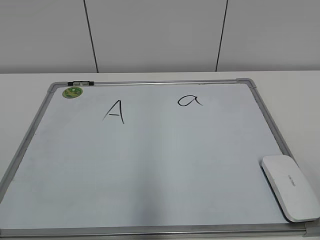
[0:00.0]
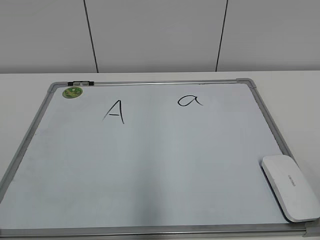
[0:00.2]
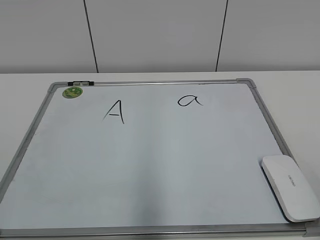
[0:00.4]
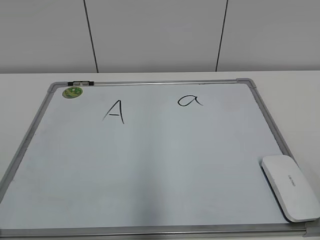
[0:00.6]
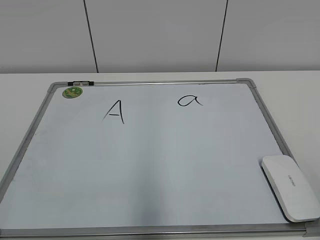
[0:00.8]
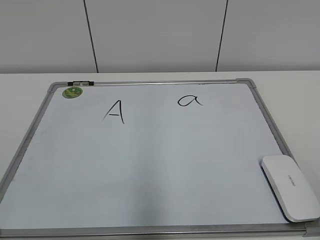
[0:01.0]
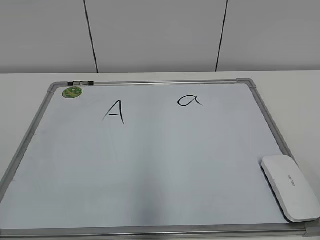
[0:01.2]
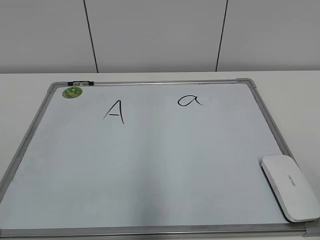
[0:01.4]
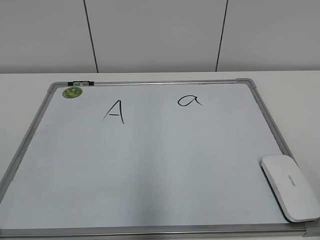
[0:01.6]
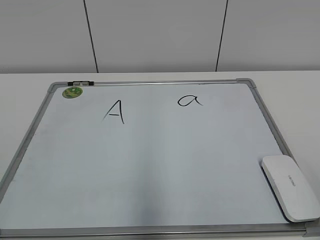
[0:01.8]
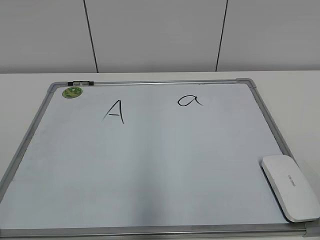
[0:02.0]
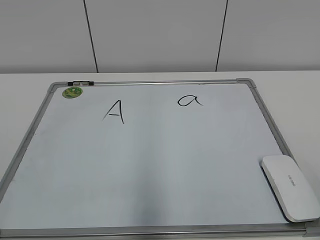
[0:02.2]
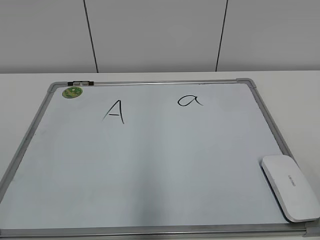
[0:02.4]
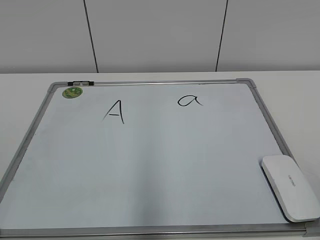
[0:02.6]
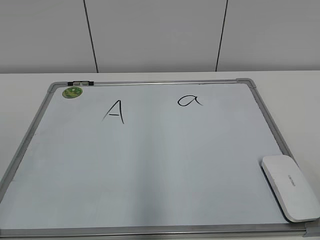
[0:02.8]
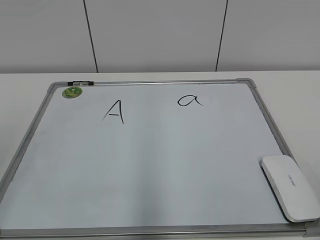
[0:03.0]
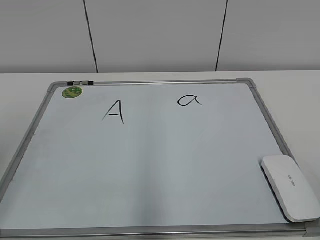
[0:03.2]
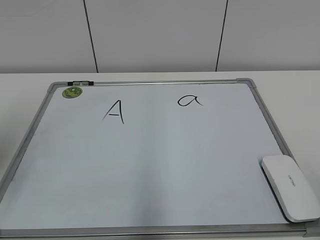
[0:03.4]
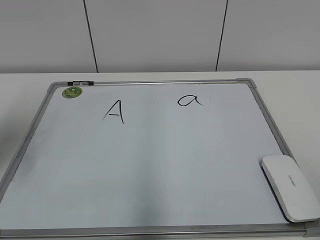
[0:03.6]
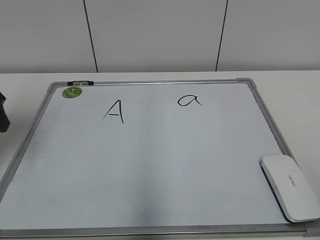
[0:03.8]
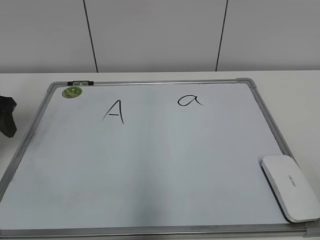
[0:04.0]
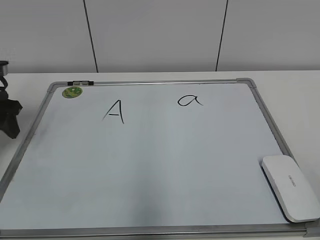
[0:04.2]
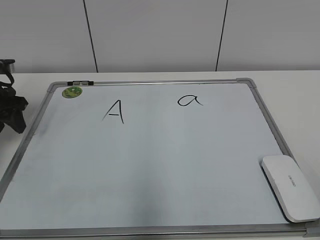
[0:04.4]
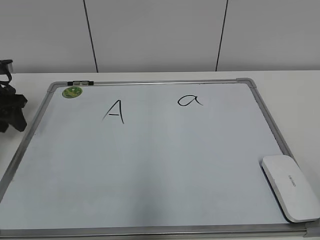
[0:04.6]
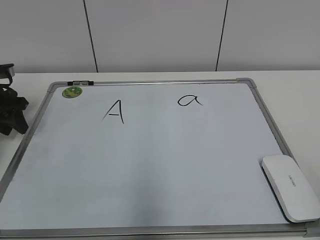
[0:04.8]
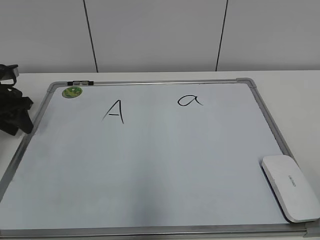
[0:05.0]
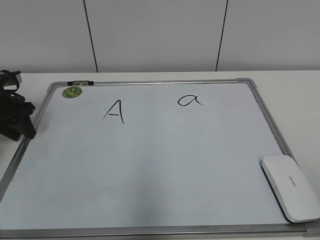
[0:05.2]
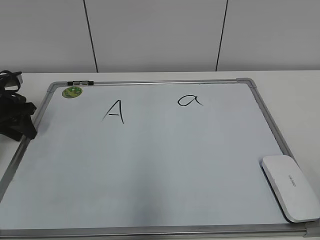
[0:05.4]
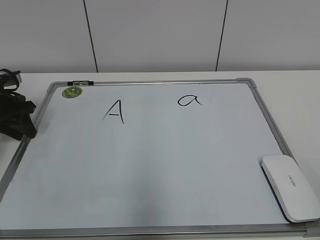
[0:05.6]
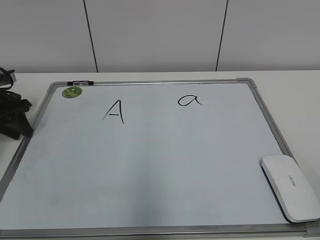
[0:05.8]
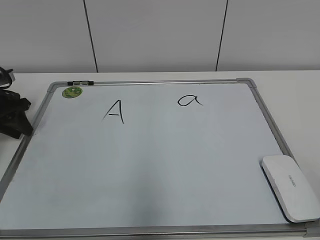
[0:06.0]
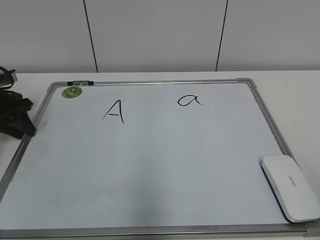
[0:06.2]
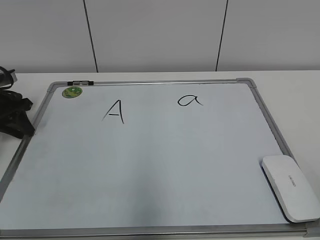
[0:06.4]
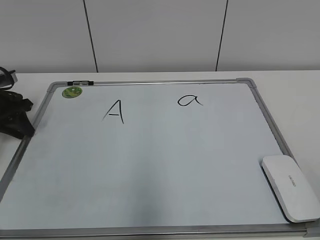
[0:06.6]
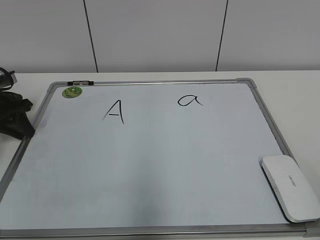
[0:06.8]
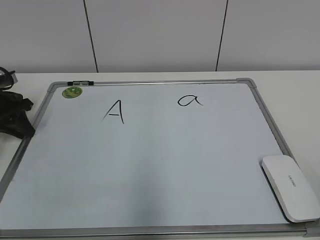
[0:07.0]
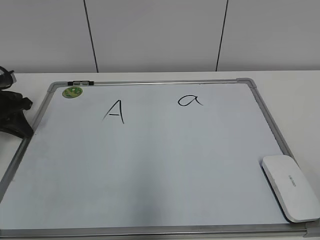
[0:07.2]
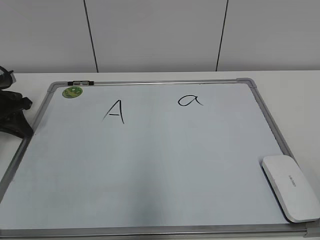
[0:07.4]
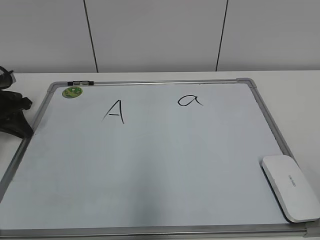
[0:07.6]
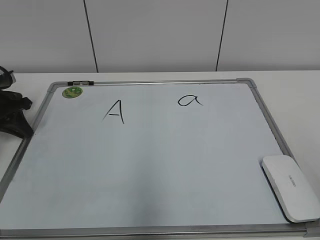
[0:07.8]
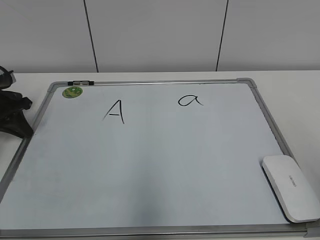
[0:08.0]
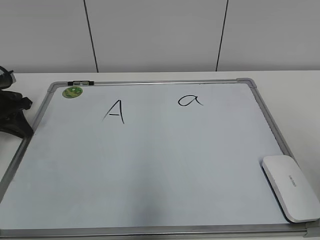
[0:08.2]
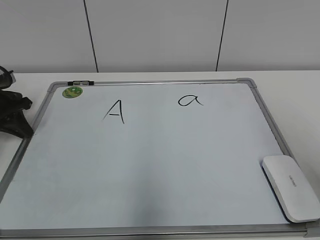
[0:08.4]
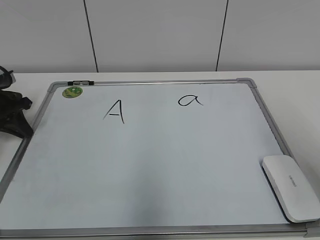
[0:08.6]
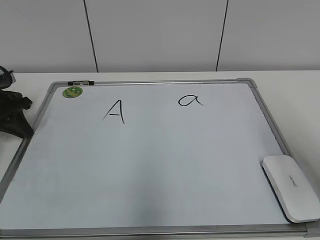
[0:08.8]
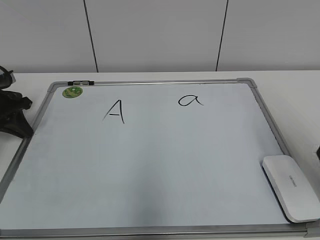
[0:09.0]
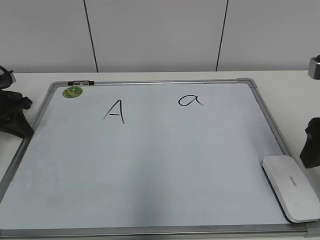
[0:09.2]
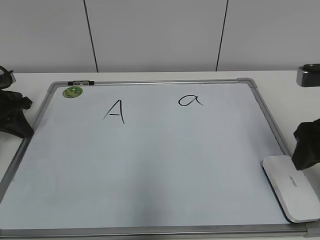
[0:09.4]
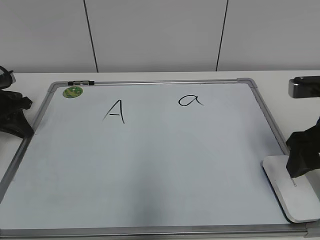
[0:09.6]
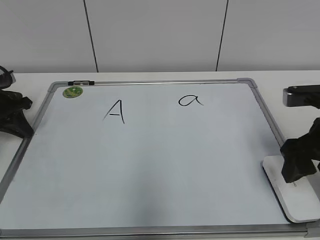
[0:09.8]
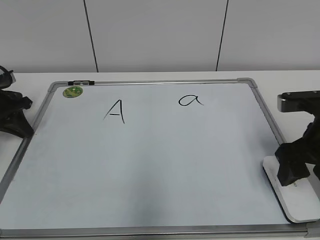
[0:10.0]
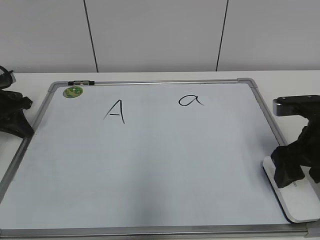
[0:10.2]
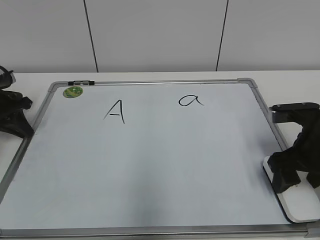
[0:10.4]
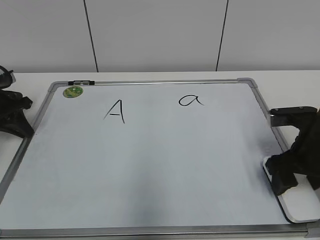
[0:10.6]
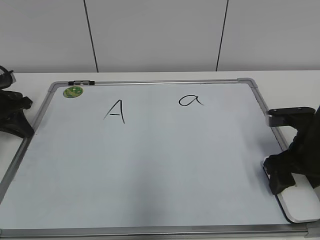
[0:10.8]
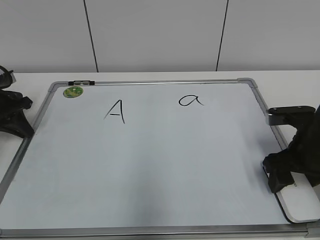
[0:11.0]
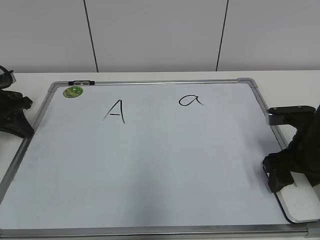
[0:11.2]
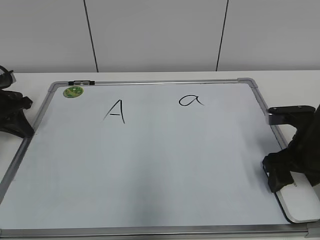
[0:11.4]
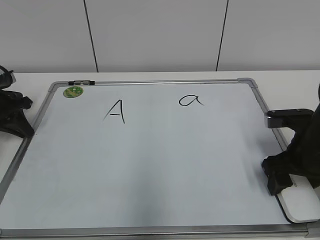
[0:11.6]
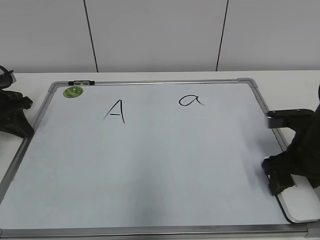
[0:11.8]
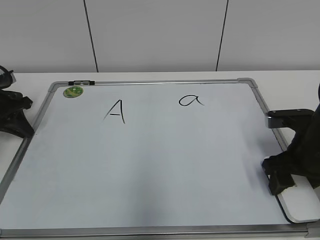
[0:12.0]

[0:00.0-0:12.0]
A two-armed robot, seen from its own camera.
Task of the whole recording: pick up the eraser on the blackboard and erase the letter "a".
Step, 0:00.0 to 0:07.4: Hold the drawing board steady with your left hand.
Step, 0:07.8 to 0:11.0: Grab the eraser with your right hand.
0:03.0 to 0:04.4: The left gripper travels forward and downward by about 30 cm.
0:04.4 to 0:06.0: The left gripper shifts by some 5 cm.
0:07.6 to 0:09.0: The right gripper goes roughly 20 cm forward.
0:09.0 to 0:10.4: The right gripper goes roughly 15 cm downward and forward.
0:10.4 to 0:12.0: There are only small adjustments of the grippers.

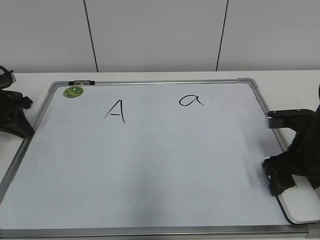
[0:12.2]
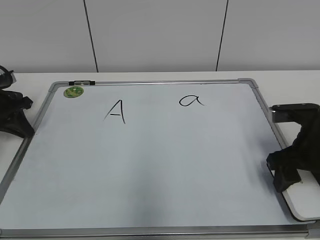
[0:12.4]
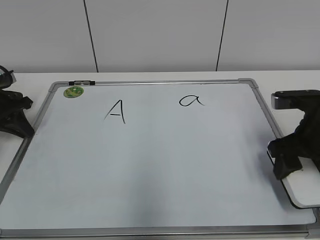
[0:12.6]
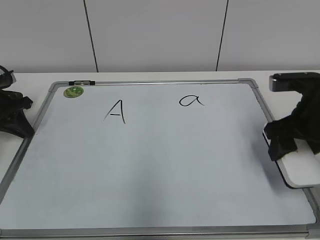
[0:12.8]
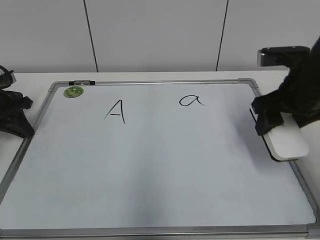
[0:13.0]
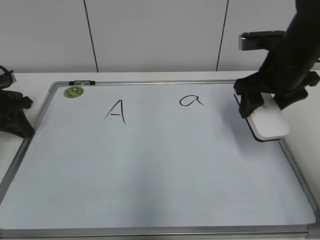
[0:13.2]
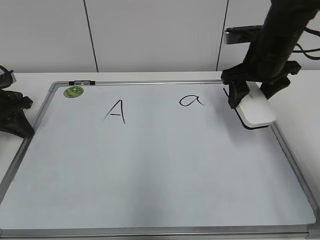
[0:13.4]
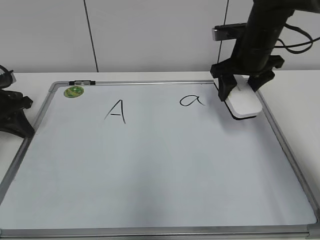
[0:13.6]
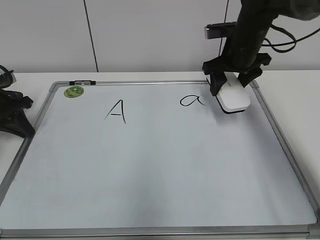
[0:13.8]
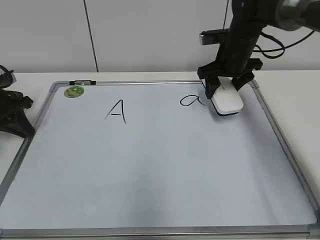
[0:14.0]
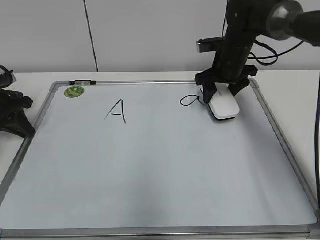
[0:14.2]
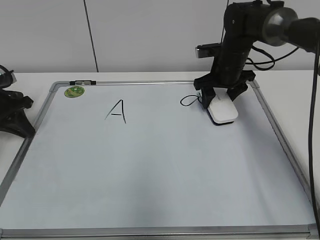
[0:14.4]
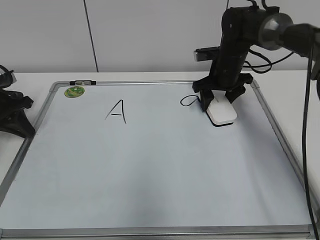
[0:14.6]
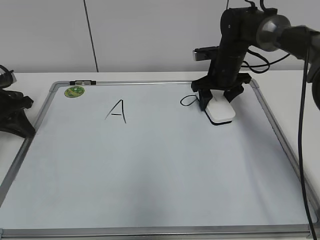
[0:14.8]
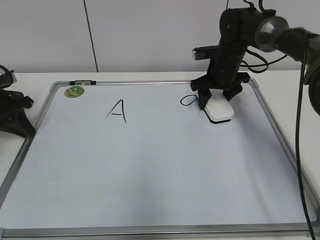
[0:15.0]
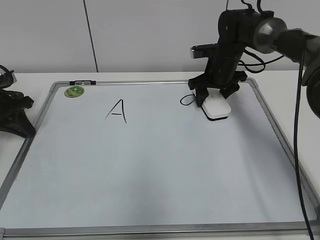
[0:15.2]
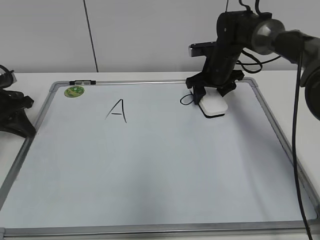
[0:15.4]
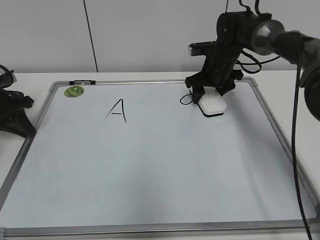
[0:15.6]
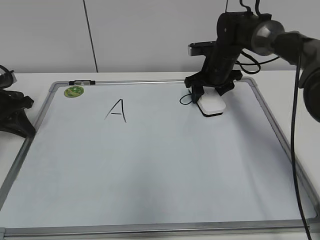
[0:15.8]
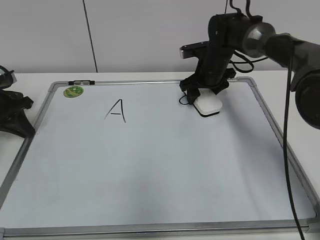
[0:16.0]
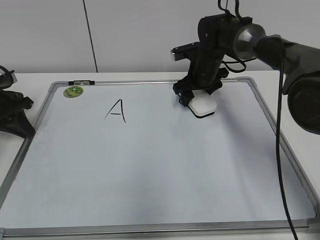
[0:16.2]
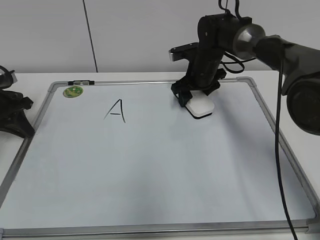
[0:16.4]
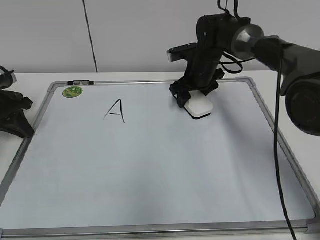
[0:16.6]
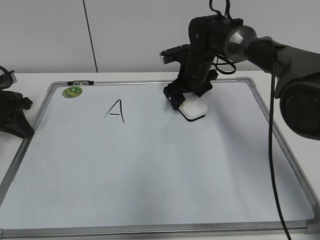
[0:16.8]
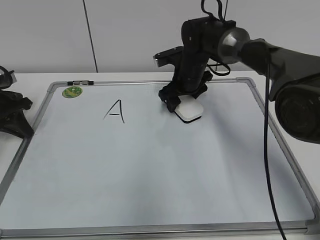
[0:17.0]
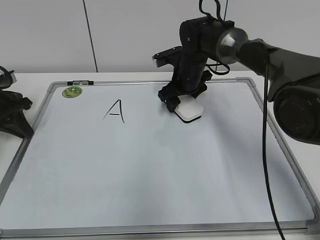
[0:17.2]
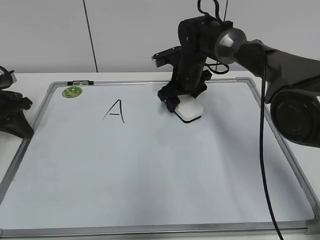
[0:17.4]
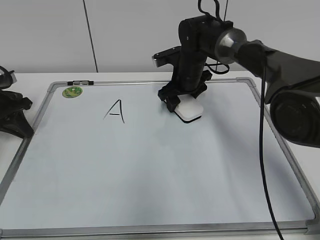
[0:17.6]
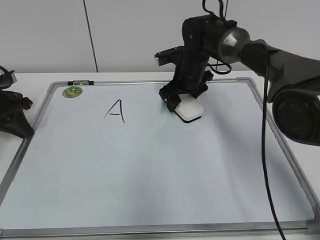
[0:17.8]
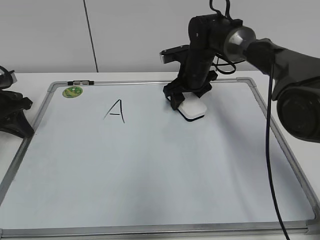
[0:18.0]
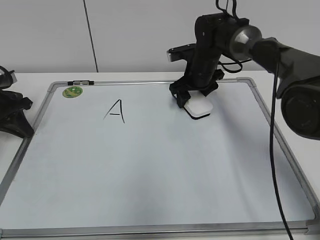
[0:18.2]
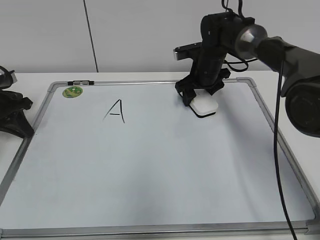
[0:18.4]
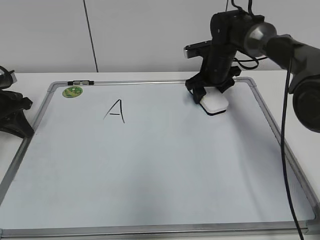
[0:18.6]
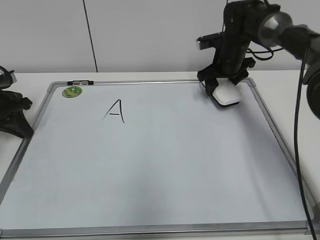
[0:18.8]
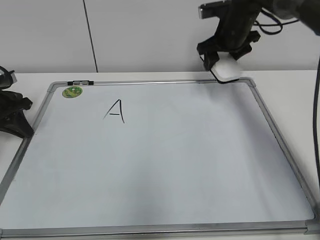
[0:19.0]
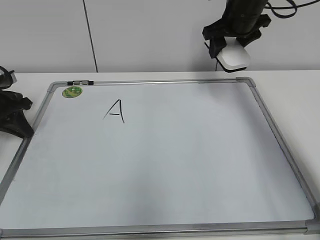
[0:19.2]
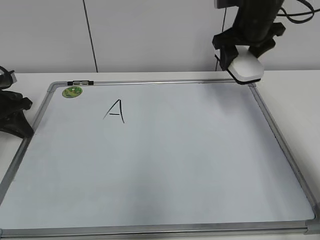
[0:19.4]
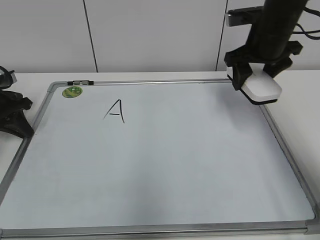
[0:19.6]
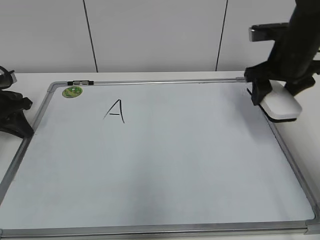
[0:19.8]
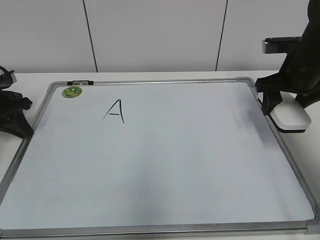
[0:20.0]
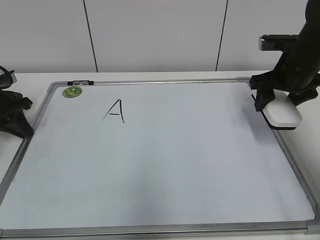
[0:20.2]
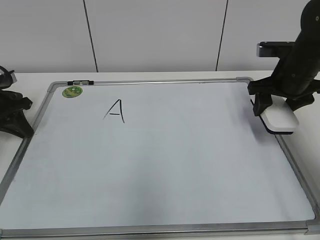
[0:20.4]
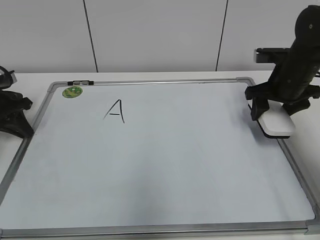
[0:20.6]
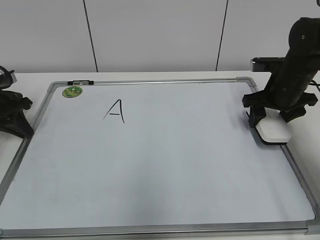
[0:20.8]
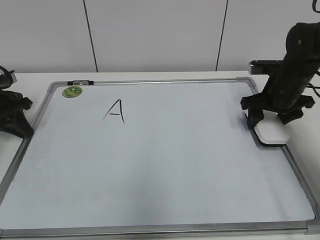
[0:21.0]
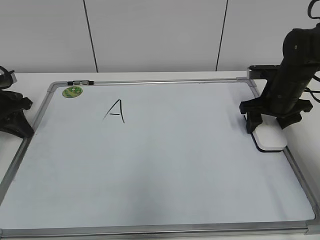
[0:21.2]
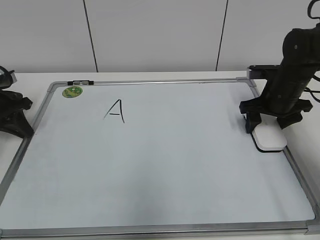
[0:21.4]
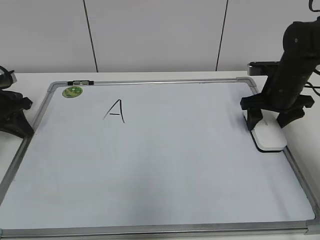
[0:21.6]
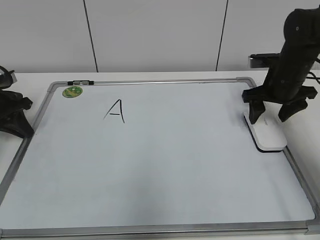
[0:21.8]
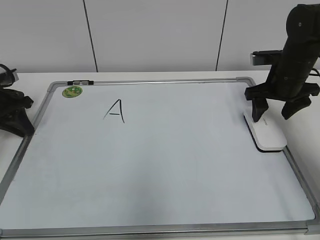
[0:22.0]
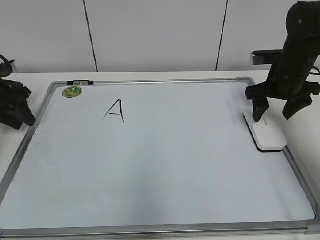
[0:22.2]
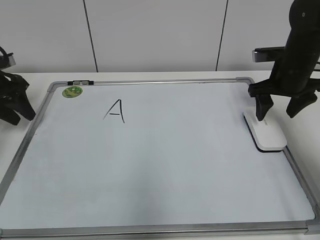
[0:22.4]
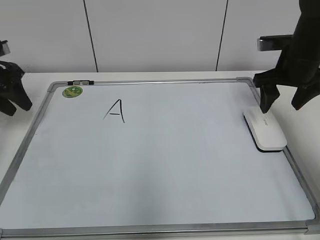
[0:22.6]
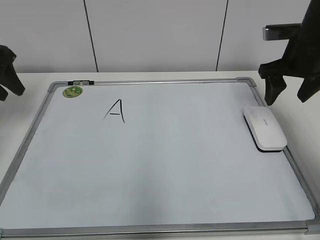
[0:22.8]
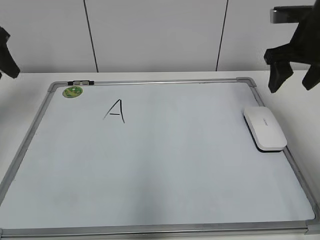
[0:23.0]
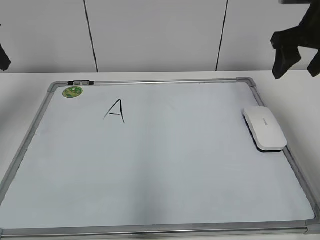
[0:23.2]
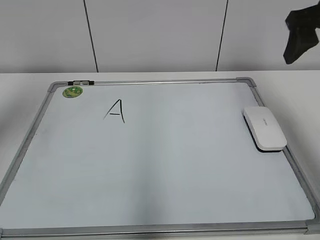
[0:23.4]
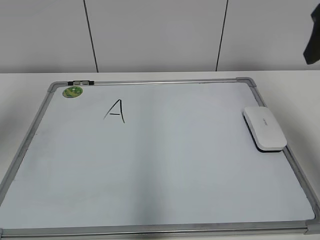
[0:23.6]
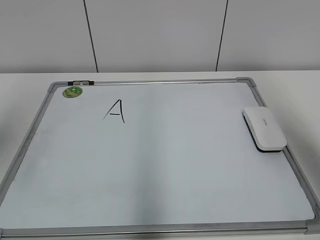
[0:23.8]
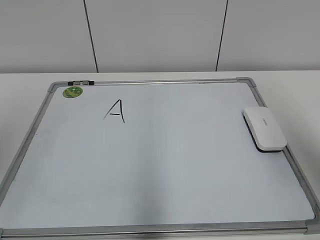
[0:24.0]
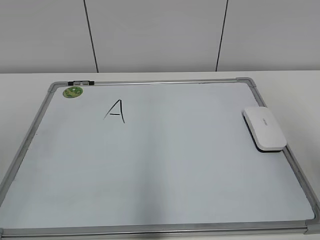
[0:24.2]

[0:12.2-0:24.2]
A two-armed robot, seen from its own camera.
Task of the whole recording: pick up the eraser on the blackboard and erase the letter "a".
Step, 0:12.2 to 0:18.6: Erase the letter a with your right hand.
Step, 0:18.8 to 0:21.4: Put down the eraser with your right hand.
0:12.2 to 0:13.8: The right gripper goes approximately 20 cm forward and upward.
0:13.8 to 0:15.2: The right gripper heads downward, covering some 5 cm.
0:15.2 to 0:16.6: The right gripper goes some 5 cm to the left.
0:16.6 to 0:18.2: The grippers stay close to where they were, moving slightly.
0:18.2 to 0:19.8: The right gripper heads to the right, backward and upward, covering roughly 20 cm.
0:19.8 to 0:21.2: The right gripper is displaced downward by some 10 cm.
0:21.2 to 0:22.6: The grippers both shift upward by roughly 5 cm. The left gripper opens.
0:22.6 to 0:24.2: The grippers both shift backward and upward by about 35 cm.
